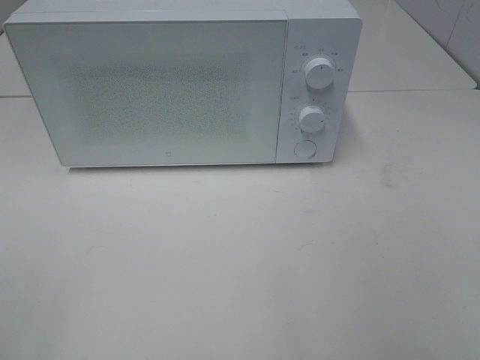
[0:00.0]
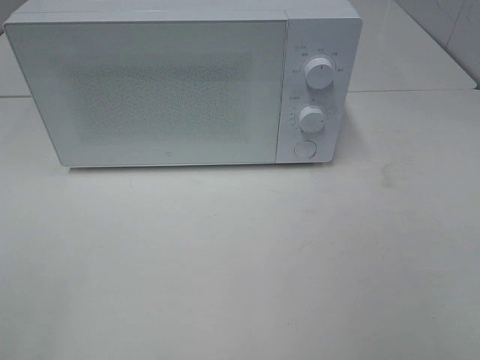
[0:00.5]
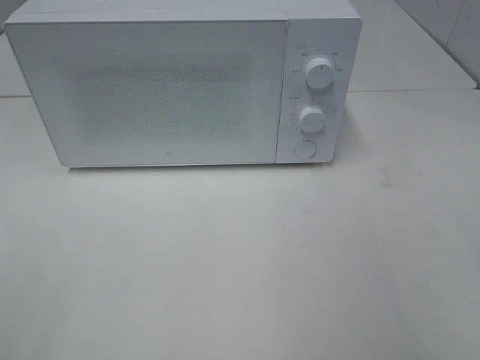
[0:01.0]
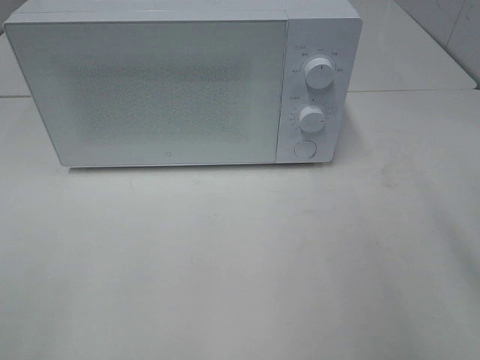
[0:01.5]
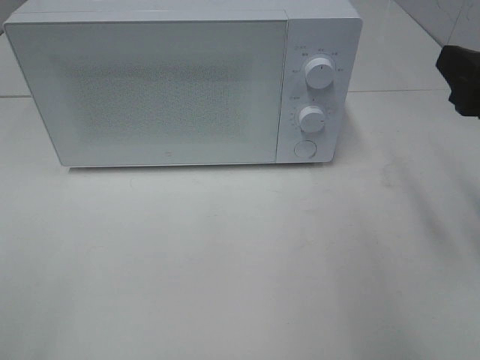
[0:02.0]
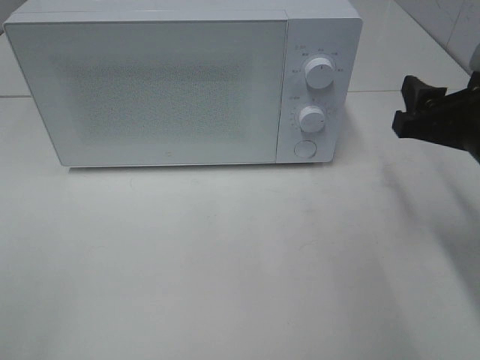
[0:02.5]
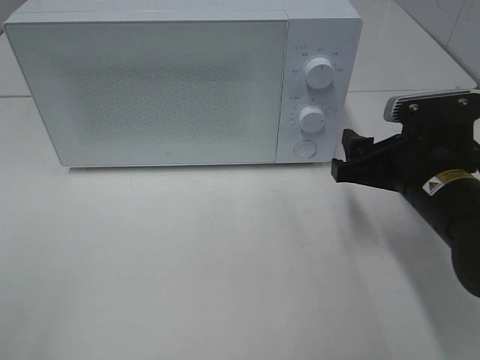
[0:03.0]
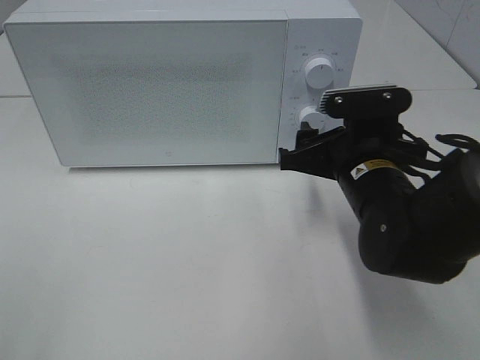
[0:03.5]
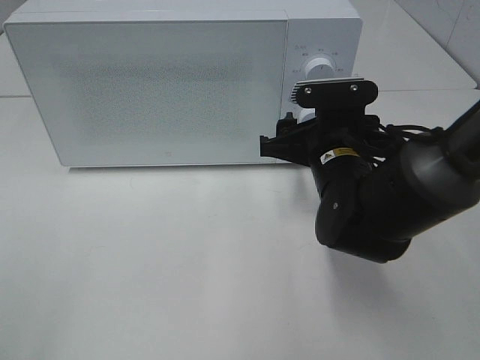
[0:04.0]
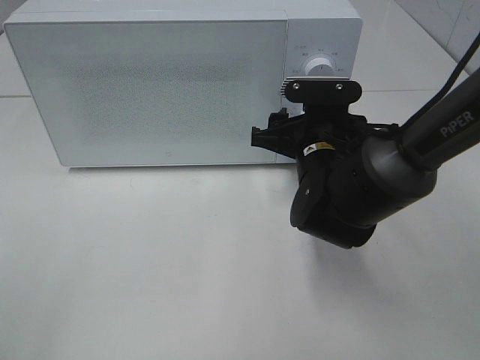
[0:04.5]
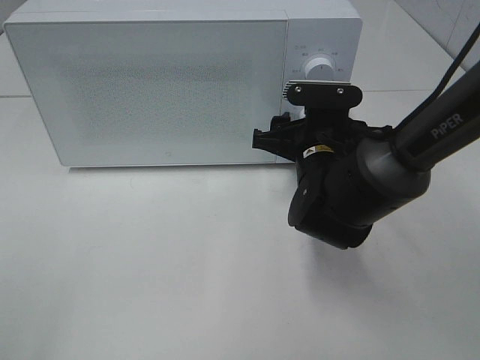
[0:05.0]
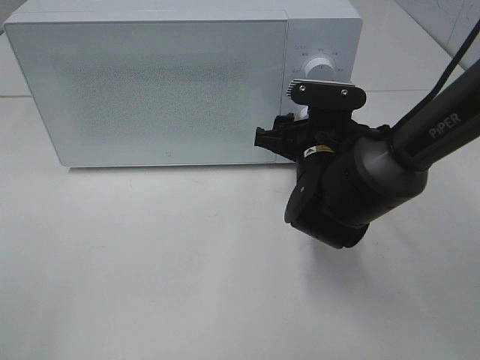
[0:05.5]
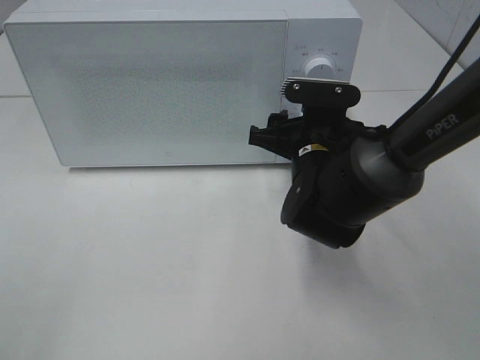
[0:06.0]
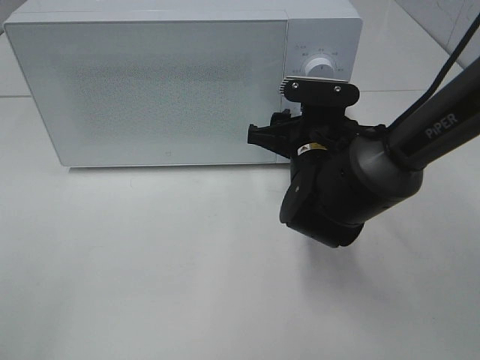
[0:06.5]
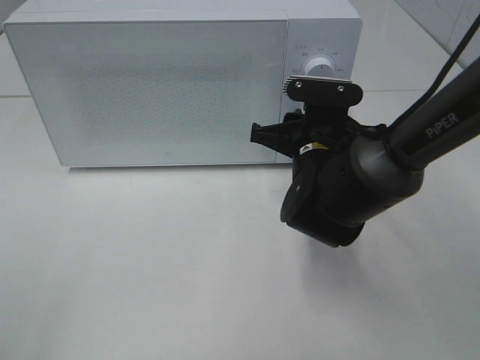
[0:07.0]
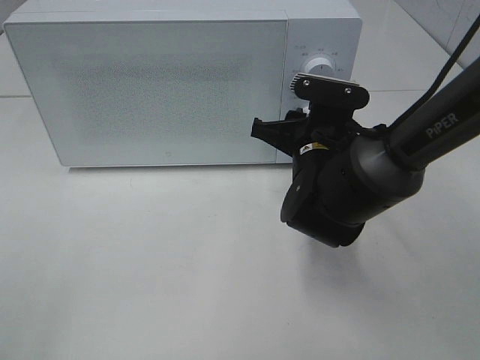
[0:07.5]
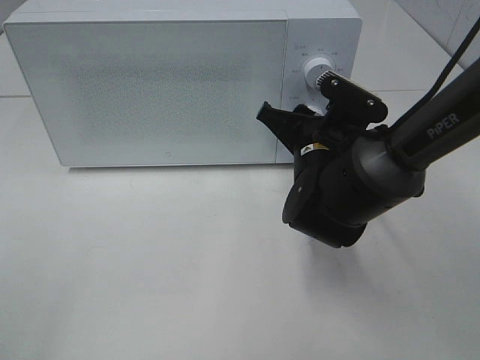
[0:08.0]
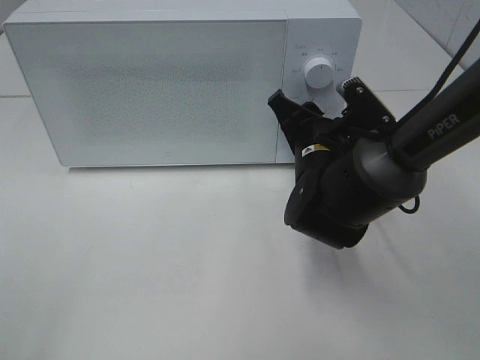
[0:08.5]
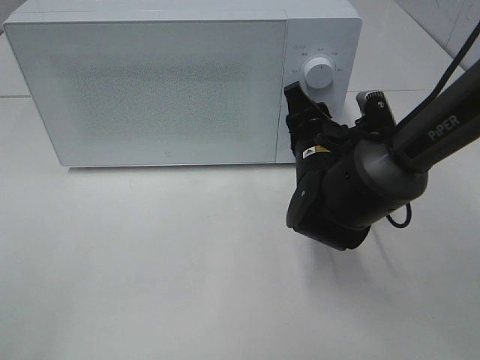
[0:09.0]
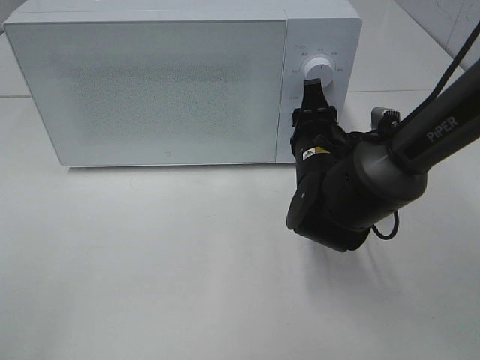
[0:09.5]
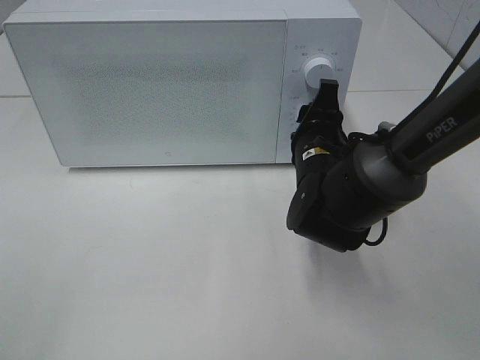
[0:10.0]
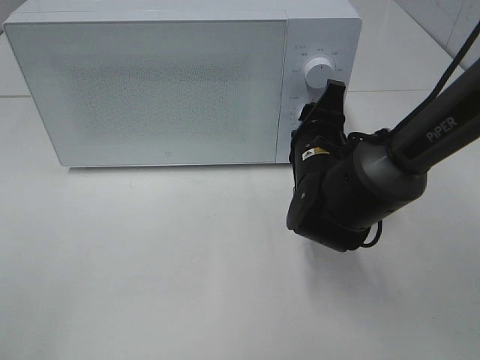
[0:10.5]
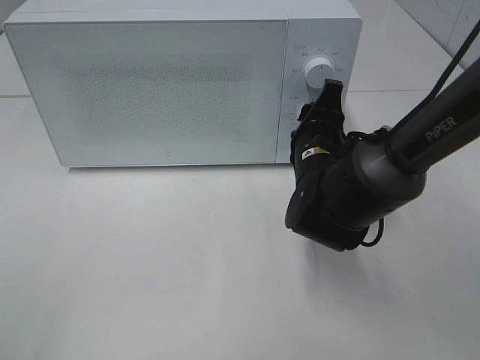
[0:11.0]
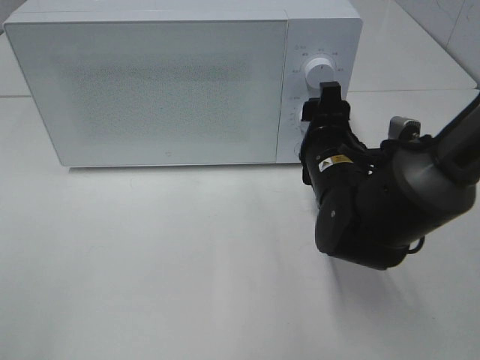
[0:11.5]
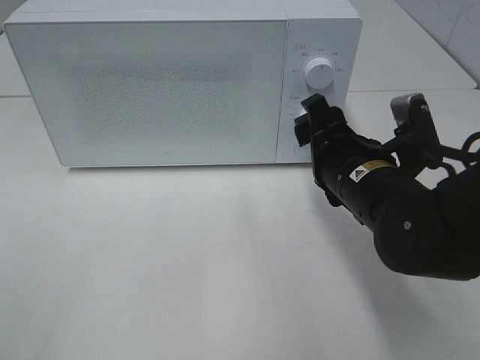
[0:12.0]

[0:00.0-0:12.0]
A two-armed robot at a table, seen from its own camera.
Task of the whole recording: Heat the burger.
Step, 0:00.0 to 0:11.5: Right hand: twist timer button.
0:00.0 to 0:02.0: The right gripper shifts approximately 20 cm forward.
0:02.0 to 0:04.0: The right gripper goes about 20 cm to the left, downward and forward.
0:04.0 to 0:06.0: The grippers stay close to where they were, moving slightly.
0:10.0 to 0:12.0: The right gripper goes approximately 5 cm backward.

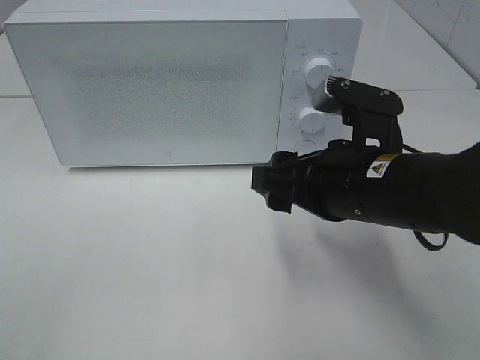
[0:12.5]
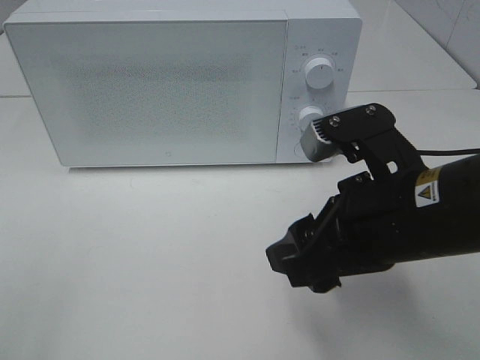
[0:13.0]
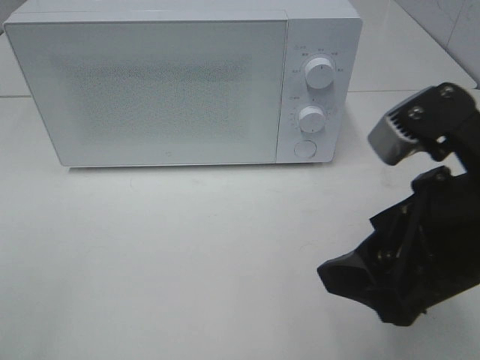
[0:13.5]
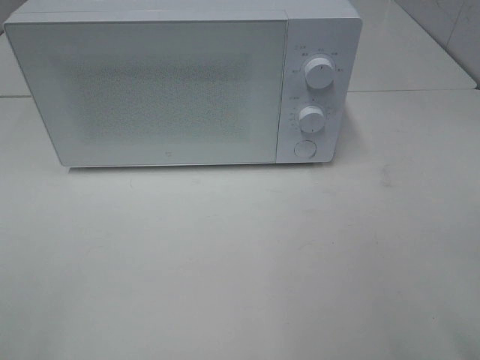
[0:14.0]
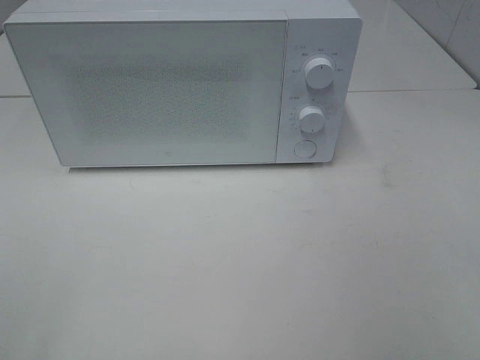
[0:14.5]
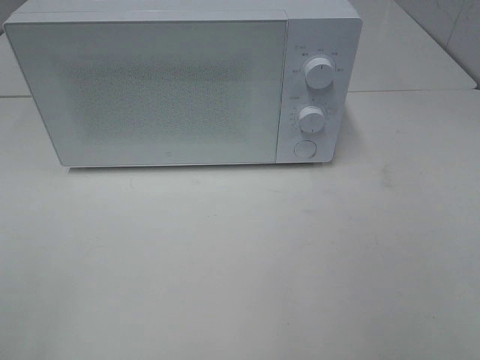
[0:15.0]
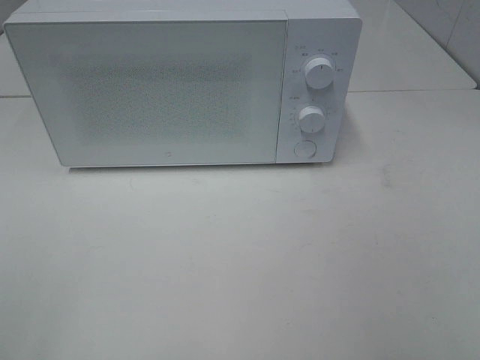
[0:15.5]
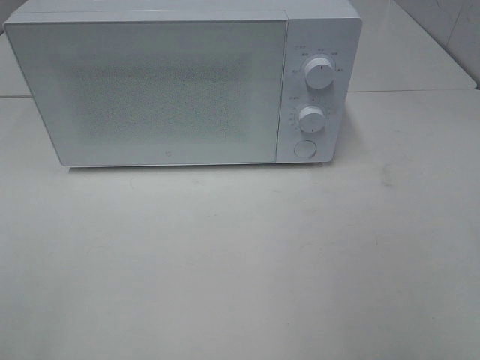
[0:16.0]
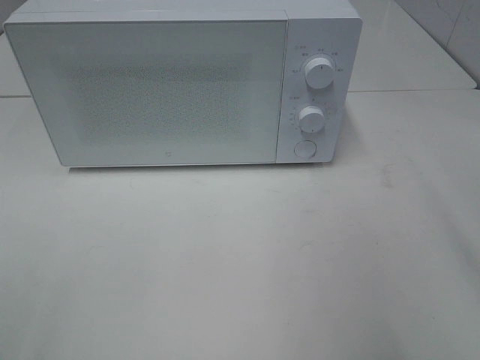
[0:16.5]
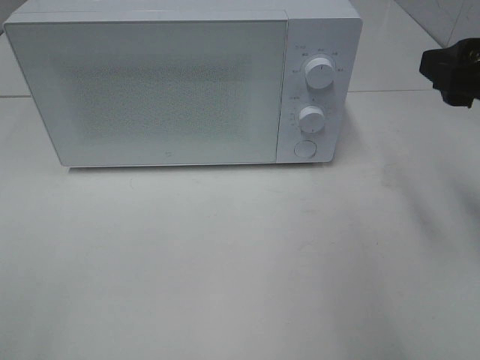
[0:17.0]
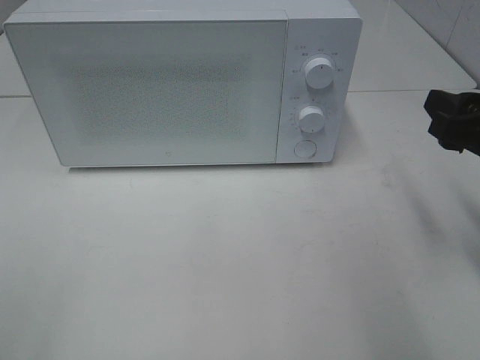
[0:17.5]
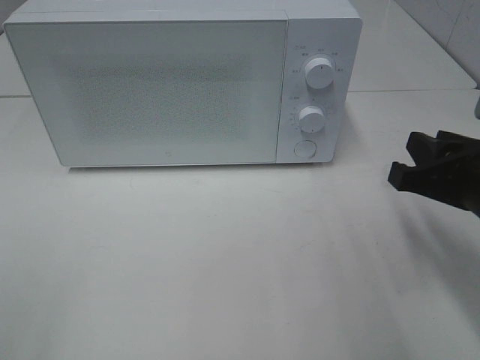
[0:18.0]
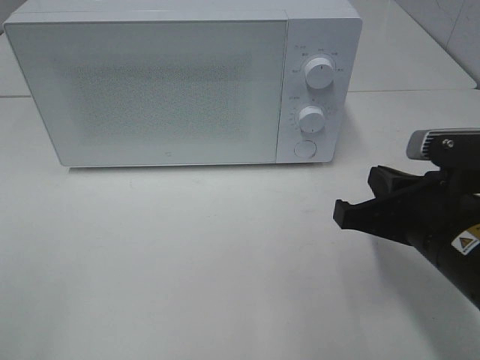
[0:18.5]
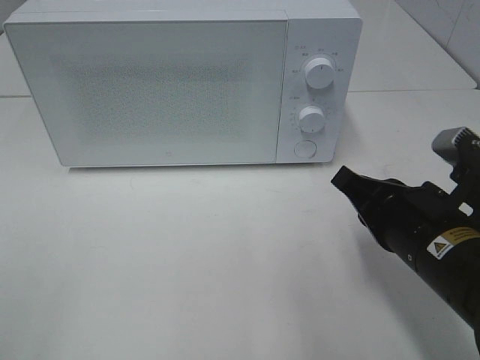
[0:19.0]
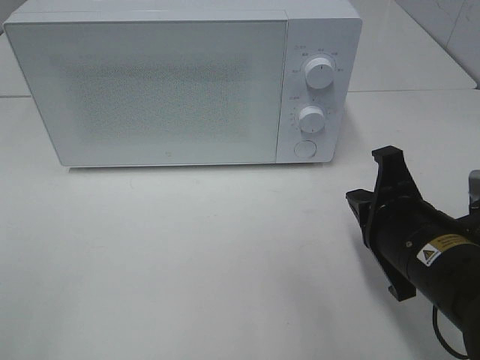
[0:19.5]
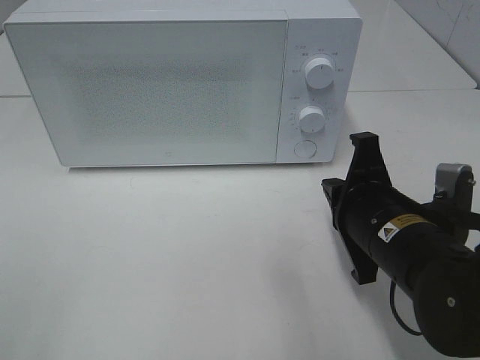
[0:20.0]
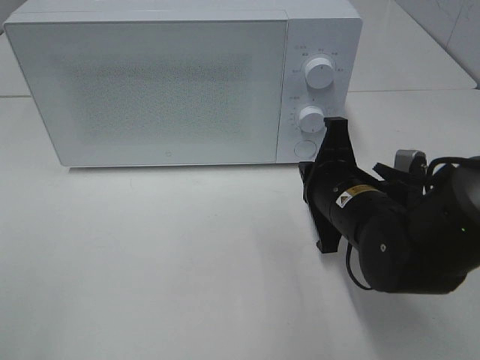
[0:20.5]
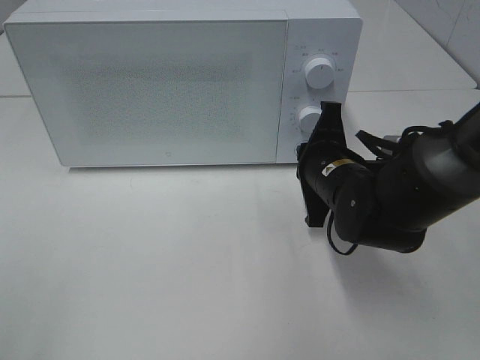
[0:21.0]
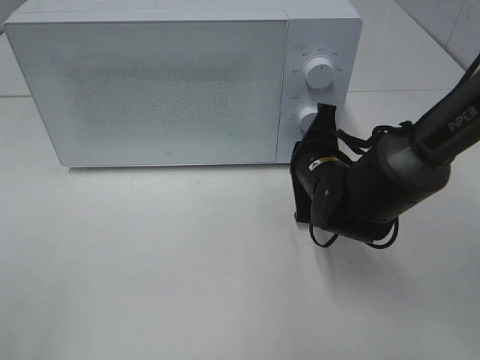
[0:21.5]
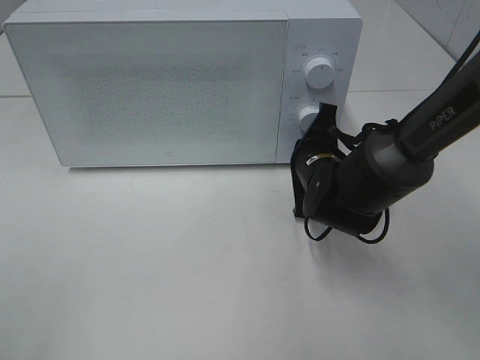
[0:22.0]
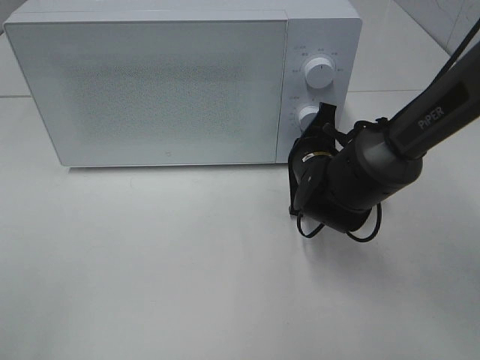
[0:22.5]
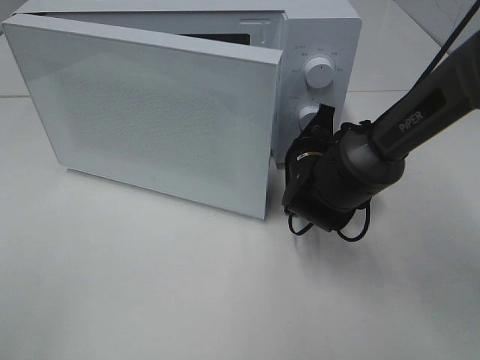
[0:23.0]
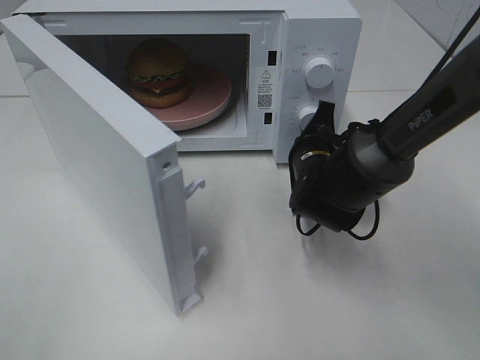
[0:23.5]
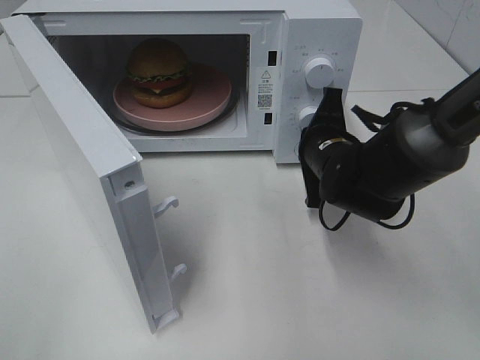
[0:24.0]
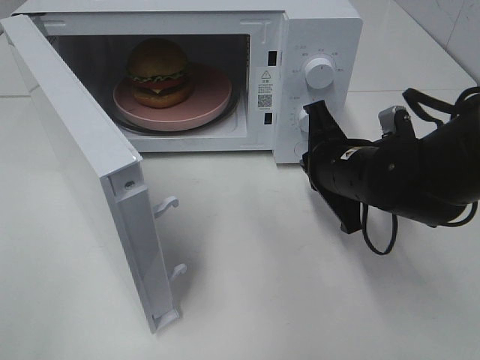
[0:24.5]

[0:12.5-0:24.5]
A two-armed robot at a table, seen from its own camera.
Task of the whole recording: Heat the burger.
Step, 0:12.5 to 0:24.0: Right hand: press the switch.
0:12.5 to 0:14.5: The right gripper shifts approximately 30 cm backward, to the right and upward.
0:16.5 to 0:18.5: The right gripper goes roughly 20 cm downward and to the left, and closes up.
0:18.5 to 0:20.5: The right gripper travels forward and to the left by about 10 cm.
0:20.5 to 0:22.5: The right gripper goes about 10 cm forward.
0:22.5 to 0:24.5: The right gripper goes approximately 5 cm backward.

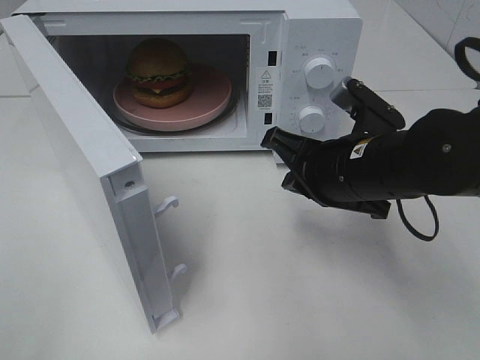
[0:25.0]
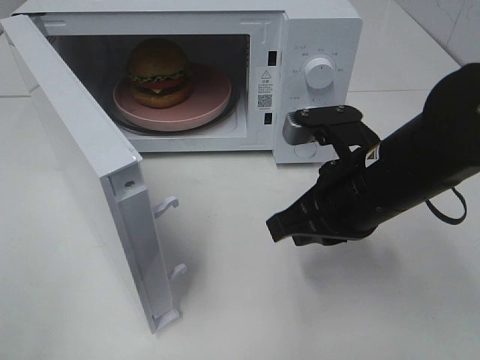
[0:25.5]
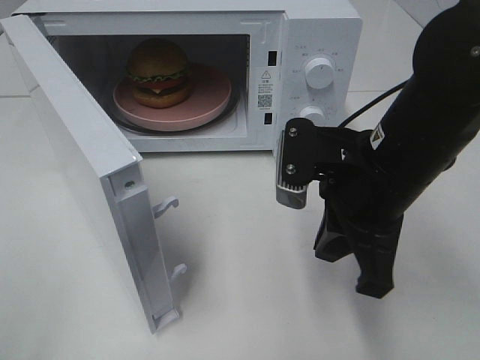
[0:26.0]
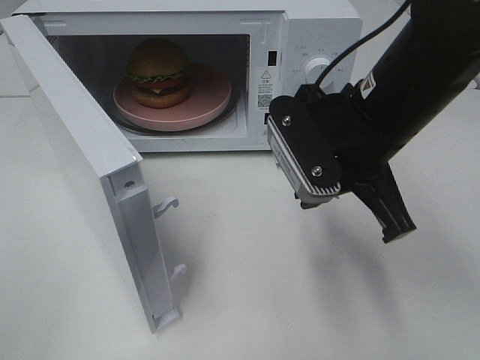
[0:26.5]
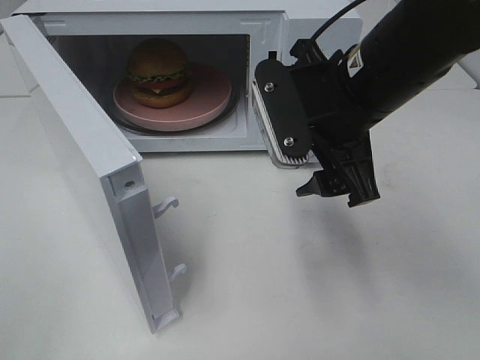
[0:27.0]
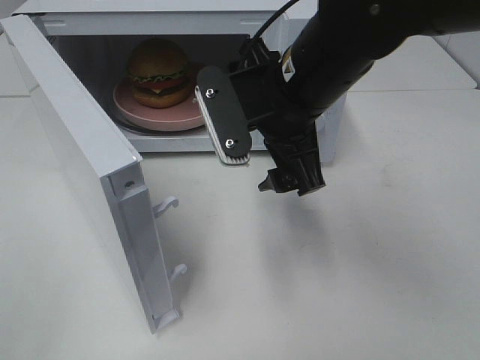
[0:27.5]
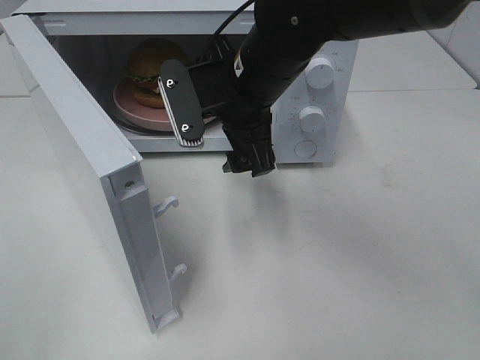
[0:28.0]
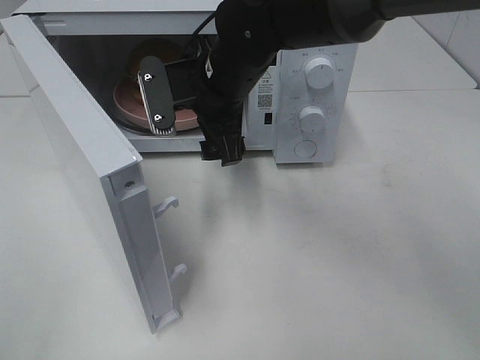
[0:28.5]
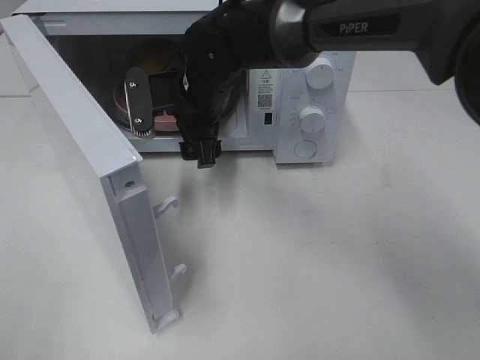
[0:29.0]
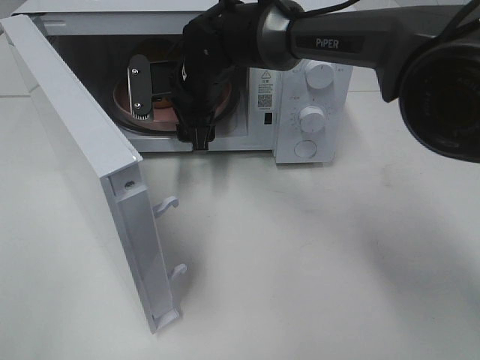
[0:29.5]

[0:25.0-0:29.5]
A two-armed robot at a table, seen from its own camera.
Task of the whole recording: Heat the burger.
0:25.0 to 0:27.0: The right gripper moves upward, about 10 cm, and opens up.
0:27.0 to 0:29.5: The right gripper is displaced forward, to the left and downward by some 25 cm.
